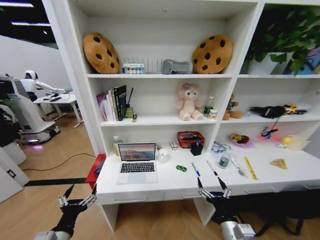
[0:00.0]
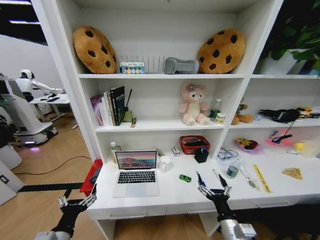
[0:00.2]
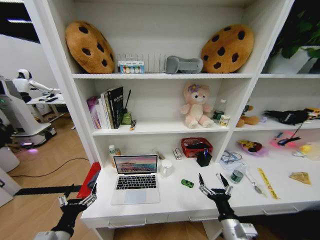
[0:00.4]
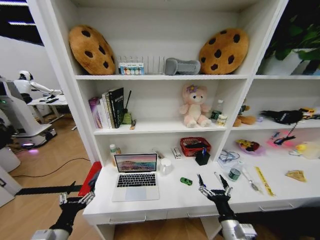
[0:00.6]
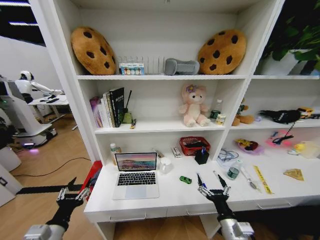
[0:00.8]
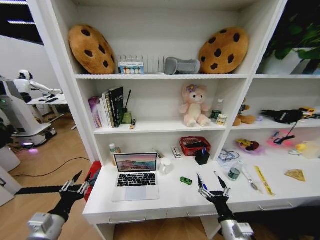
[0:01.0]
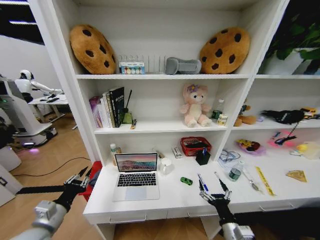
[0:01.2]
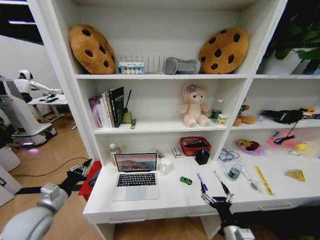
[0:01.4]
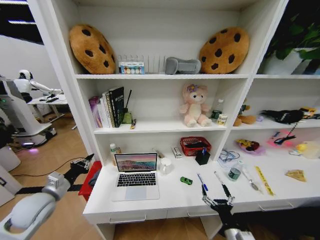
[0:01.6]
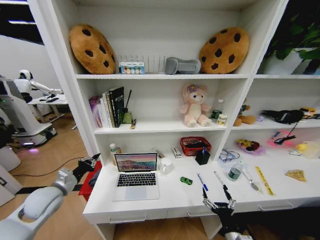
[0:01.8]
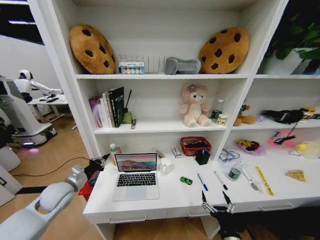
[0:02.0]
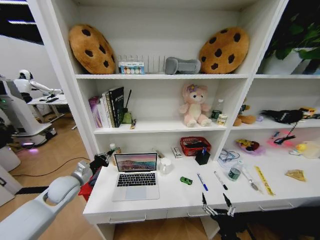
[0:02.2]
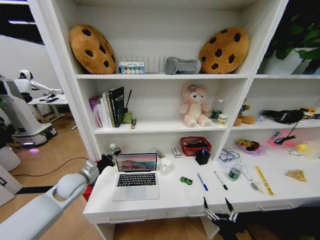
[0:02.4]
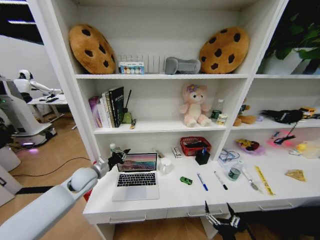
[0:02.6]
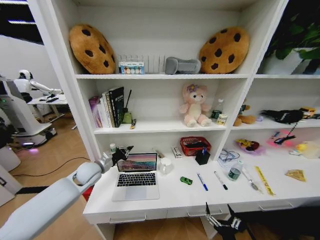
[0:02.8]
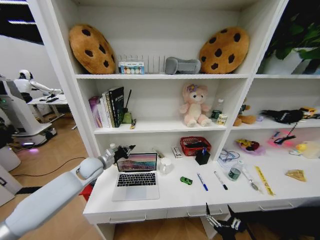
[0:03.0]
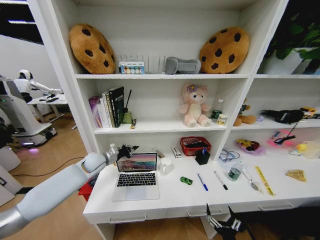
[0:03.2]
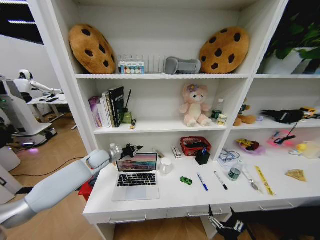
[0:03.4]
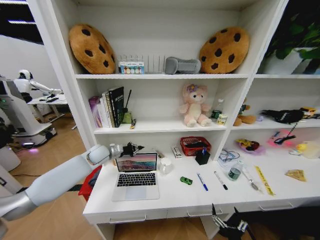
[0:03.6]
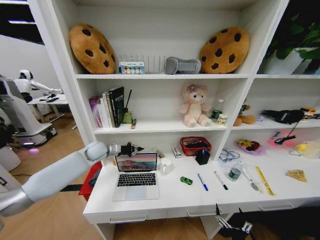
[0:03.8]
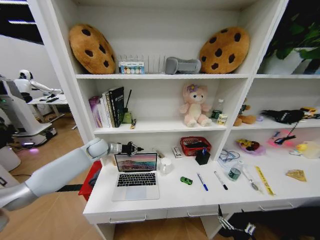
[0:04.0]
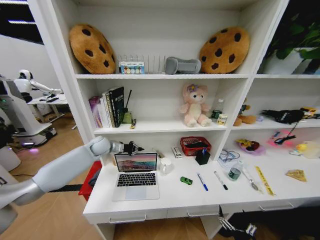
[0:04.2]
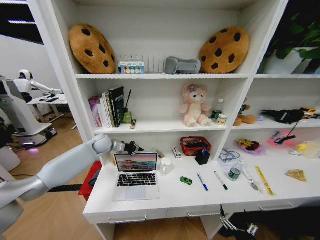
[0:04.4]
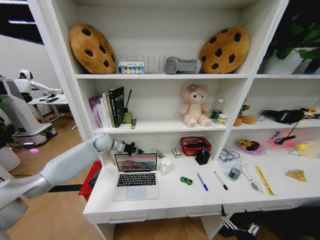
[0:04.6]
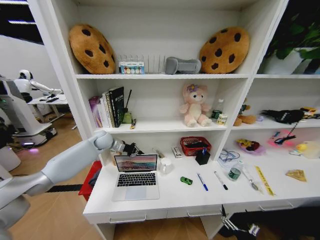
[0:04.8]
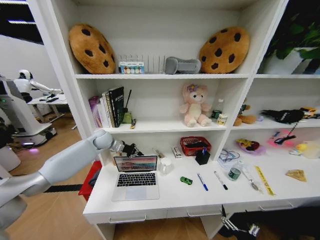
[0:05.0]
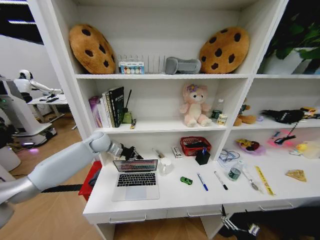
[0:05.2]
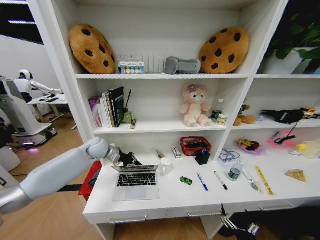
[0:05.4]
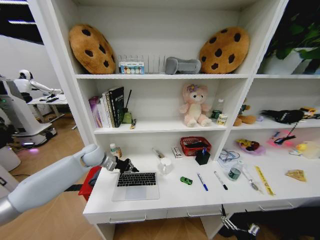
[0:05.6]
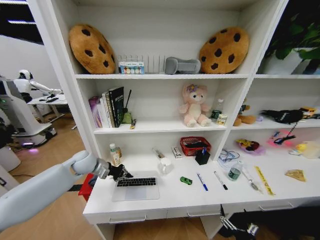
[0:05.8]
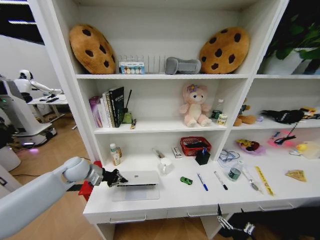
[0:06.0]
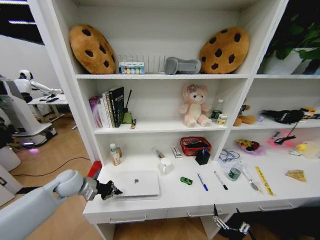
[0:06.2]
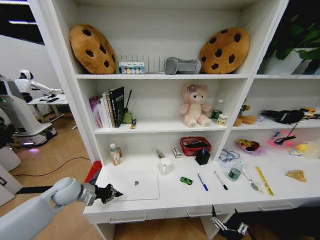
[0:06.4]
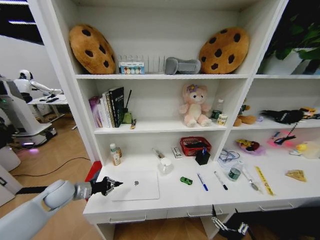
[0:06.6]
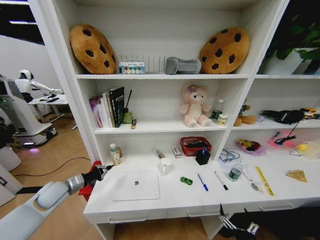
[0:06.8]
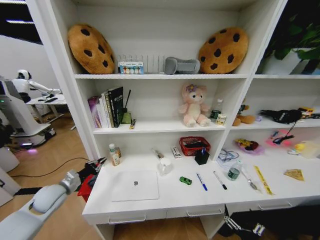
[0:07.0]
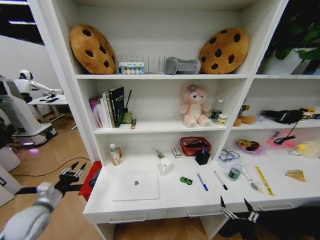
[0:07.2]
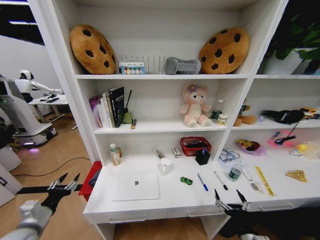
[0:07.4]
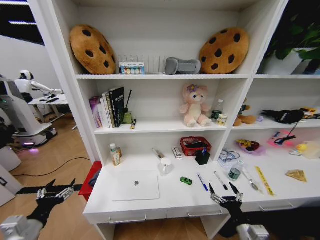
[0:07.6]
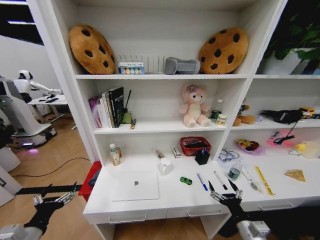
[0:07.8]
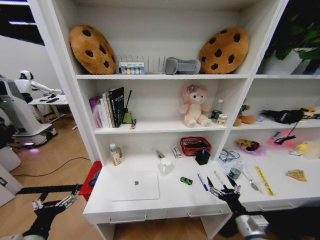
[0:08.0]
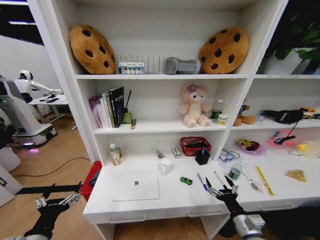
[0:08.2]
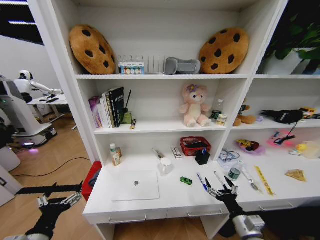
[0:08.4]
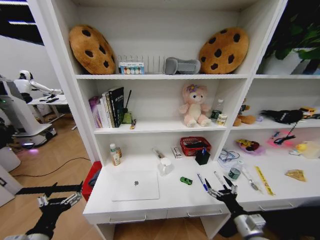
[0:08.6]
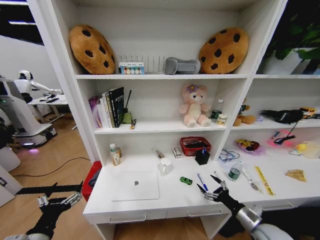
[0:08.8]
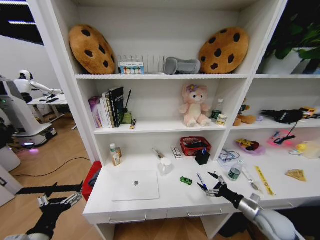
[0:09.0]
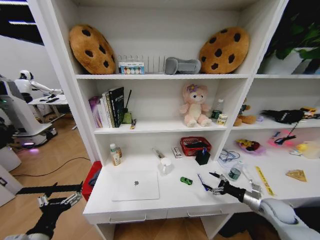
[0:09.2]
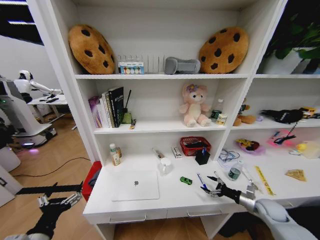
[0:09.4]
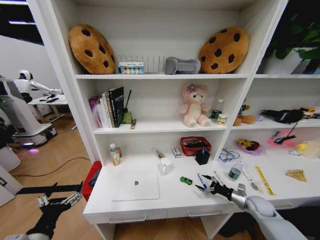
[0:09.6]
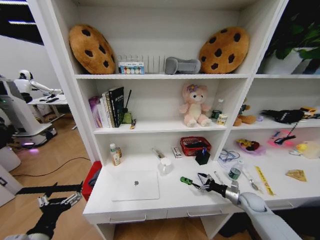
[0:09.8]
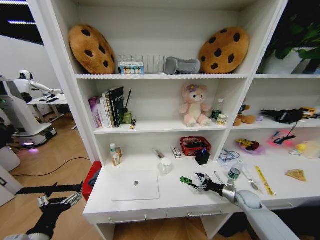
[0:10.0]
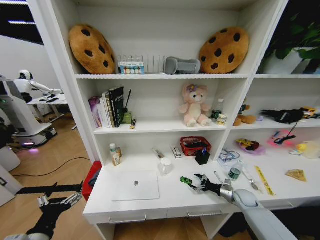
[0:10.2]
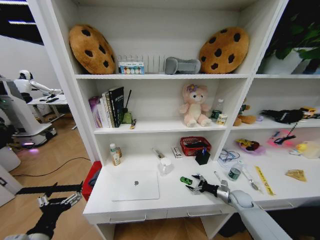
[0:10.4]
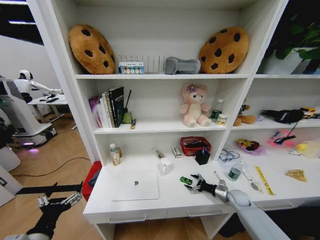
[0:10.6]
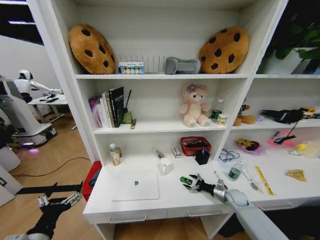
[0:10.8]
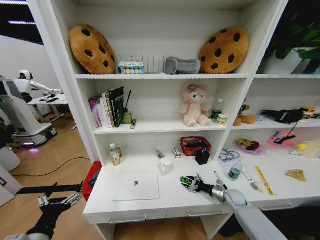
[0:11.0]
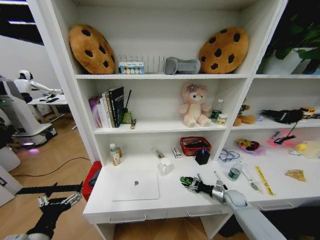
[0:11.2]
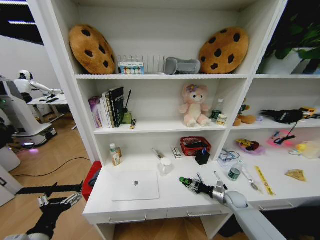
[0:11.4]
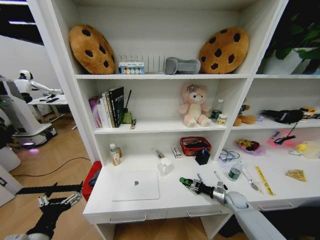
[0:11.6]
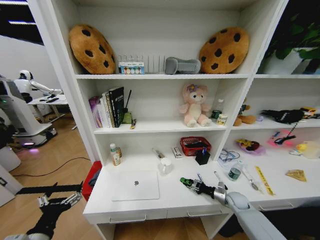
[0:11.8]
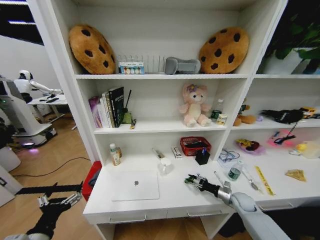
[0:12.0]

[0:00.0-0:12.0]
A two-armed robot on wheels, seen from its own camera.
Task of the whole recording: Organize the objects on the table.
0:00.0 to 0:01.6: The right gripper shifts by about 5 cm, while the left gripper goes about 20 cm forward and to the left, and closes.
0:01.6 to 0:03.0: The right gripper heads backward and downward, covering roughly 10 cm. The left gripper is displaced forward and to the right by about 20 cm.
0:03.0 to 0:04.4: The left gripper goes about 10 cm forward.
0:04.4 to 0:06.0: The left gripper heads backward and to the left, covering some 15 cm.
0:06.0 to 0:07.6: The left gripper heads backward, covering about 25 cm, and opens its fingers. The right gripper travels upward and forward by approximately 10 cm.
0:07.6 to 0:09.0: The left gripper goes about 5 cm to the right; the right gripper heads to the right and forward, covering approximately 15 cm.
0:09.0 to 0:10.4: The right gripper heads forward and downward, covering roughly 15 cm.
0:10.4 to 0:12.0: The right gripper closes its fingers.

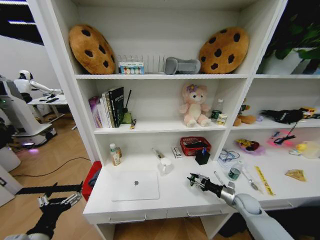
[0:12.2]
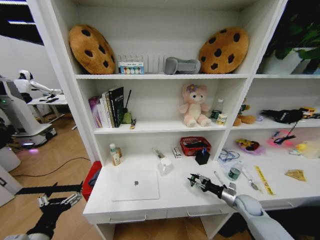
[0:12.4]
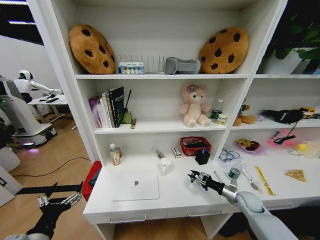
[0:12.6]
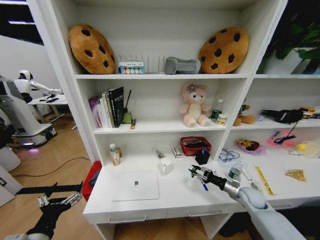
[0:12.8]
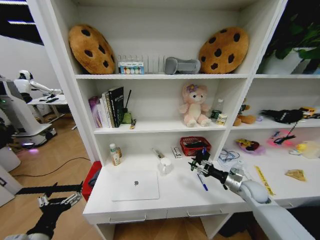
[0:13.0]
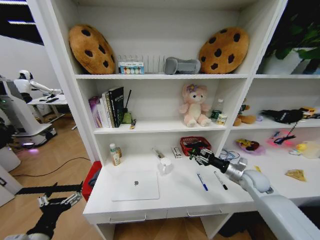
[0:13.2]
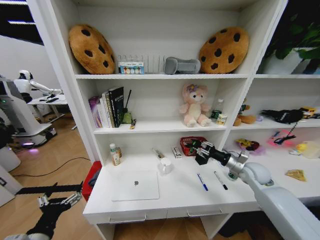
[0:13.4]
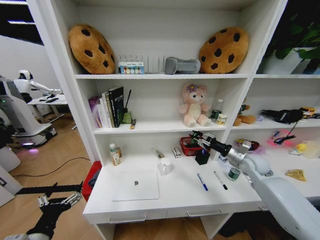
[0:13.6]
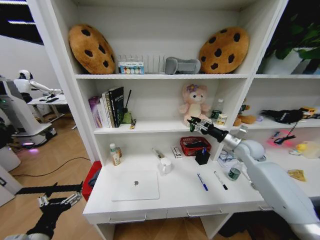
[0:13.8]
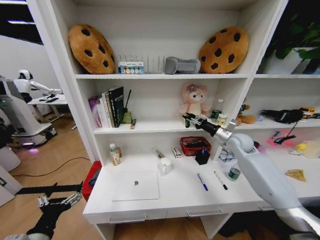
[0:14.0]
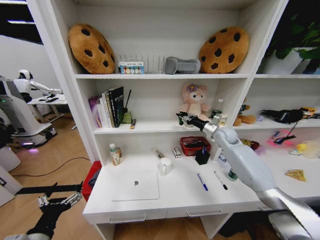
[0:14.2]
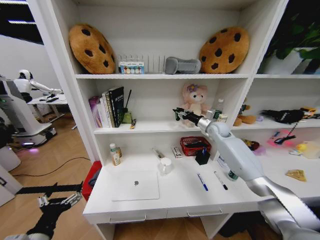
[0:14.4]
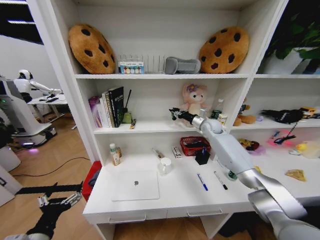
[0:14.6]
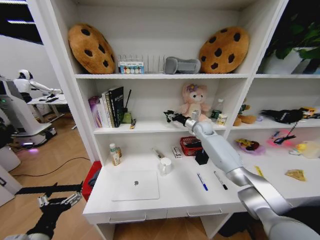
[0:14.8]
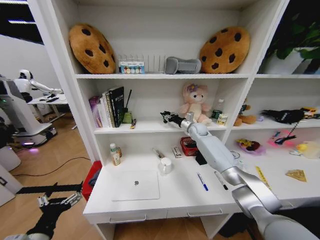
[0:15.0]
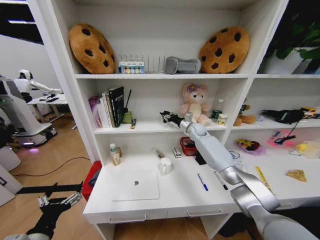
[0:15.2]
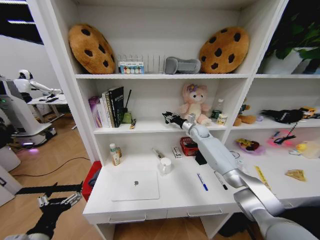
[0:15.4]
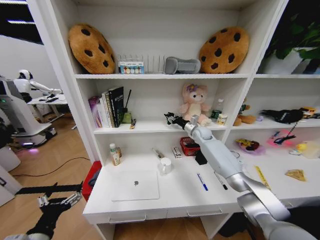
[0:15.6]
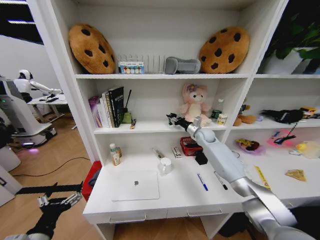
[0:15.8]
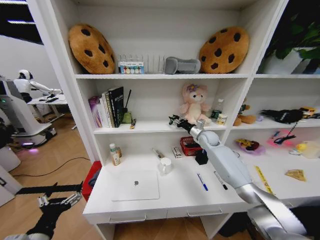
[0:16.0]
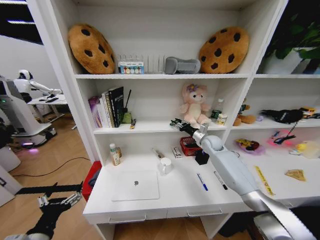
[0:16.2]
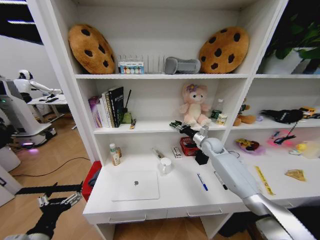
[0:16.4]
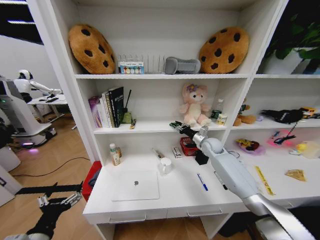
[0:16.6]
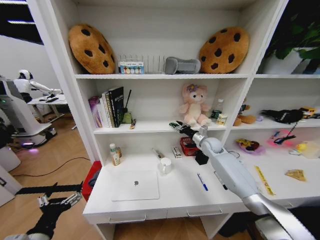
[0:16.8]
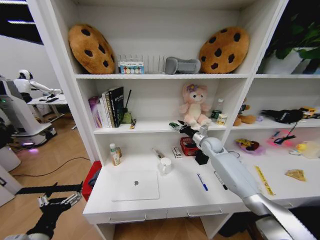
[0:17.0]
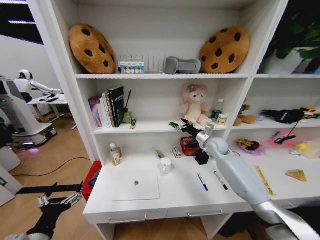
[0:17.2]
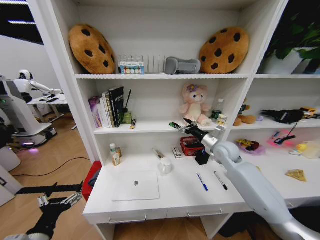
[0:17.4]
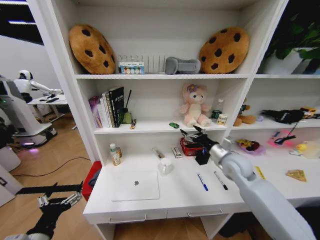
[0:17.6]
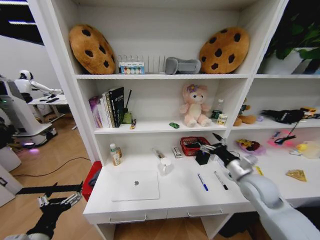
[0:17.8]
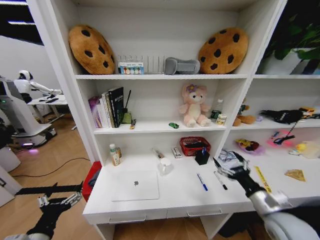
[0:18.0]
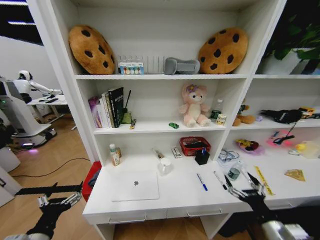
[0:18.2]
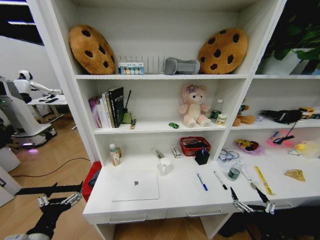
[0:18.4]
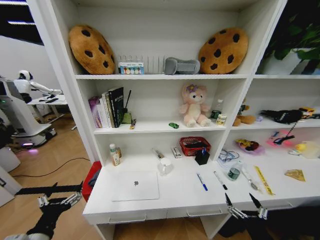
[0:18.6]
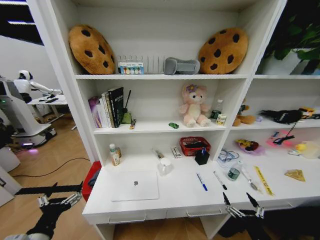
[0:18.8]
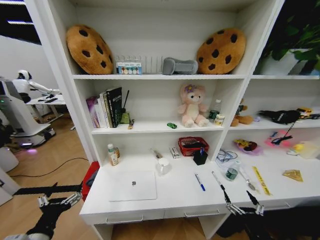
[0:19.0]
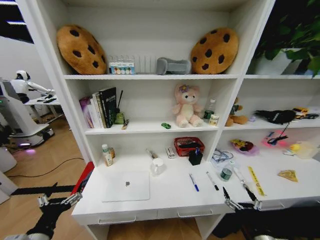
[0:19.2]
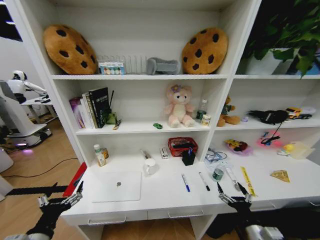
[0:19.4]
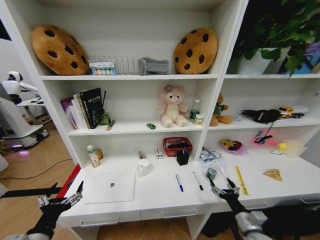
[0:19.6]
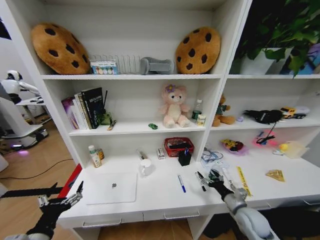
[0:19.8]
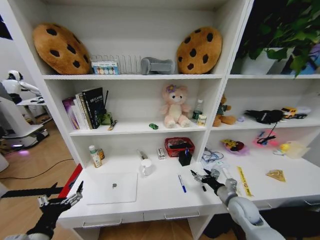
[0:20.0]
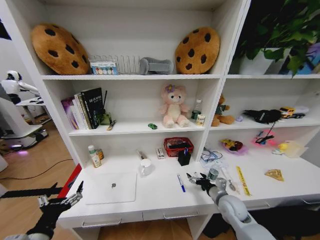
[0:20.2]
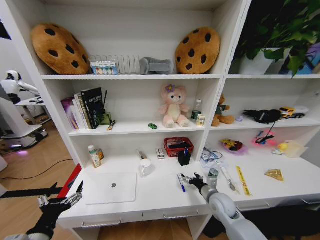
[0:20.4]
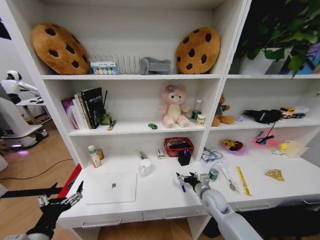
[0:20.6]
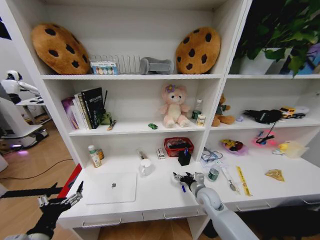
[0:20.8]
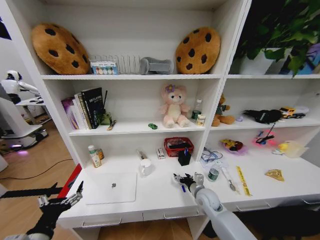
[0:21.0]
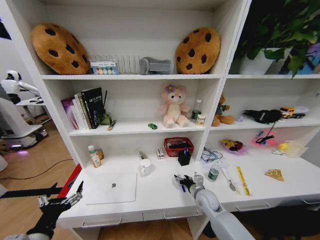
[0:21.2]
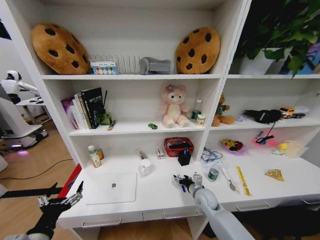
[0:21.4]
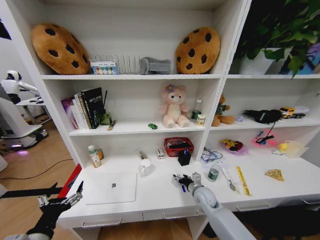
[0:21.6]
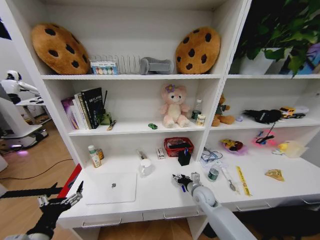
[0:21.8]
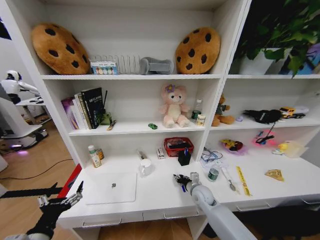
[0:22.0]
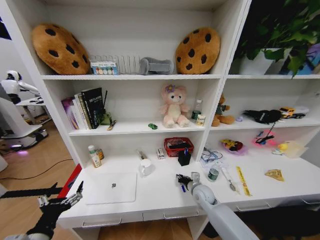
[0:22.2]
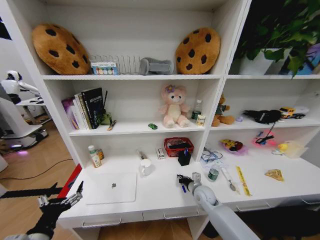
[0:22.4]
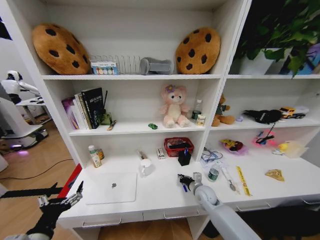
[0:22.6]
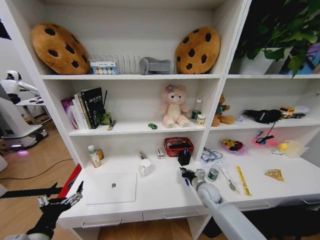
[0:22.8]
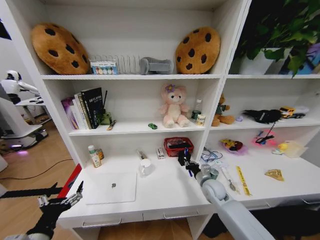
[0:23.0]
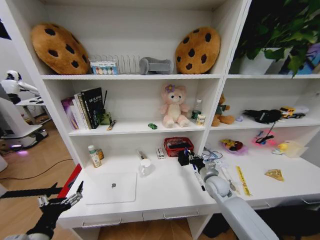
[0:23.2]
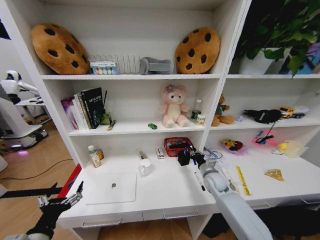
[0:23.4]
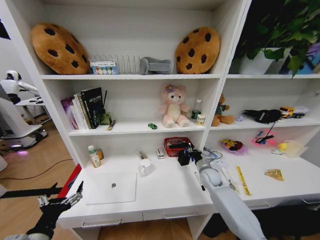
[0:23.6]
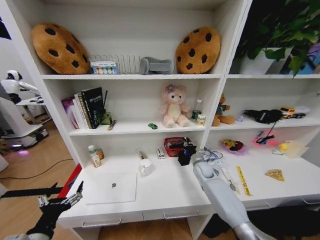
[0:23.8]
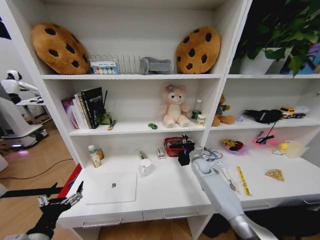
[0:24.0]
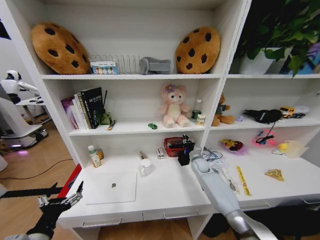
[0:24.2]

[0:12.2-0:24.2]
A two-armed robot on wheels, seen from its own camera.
Task of the whole recording: Organize the objects on the table.
0:12.2 to 0:13.8: The right gripper is displaced upward and forward by roughly 30 cm.
0:13.8 to 0:15.2: The right gripper goes about 25 cm forward and to the left.
0:15.2 to 0:16.6: The right gripper goes approximately 10 cm backward and to the right.
0:16.6 to 0:18.2: The right gripper heads backward, covering approximately 40 cm, and opens up.
0:18.2 to 0:19.8: The right gripper travels forward and downward by some 15 cm.
0:19.8 to 0:21.2: The right gripper travels to the left and forward by some 15 cm.
0:21.2 to 0:22.6: The right gripper closes its fingers.
0:22.6 to 0:24.2: The right gripper shifts approximately 15 cm forward.
